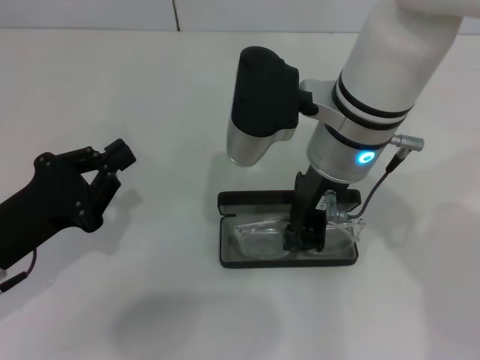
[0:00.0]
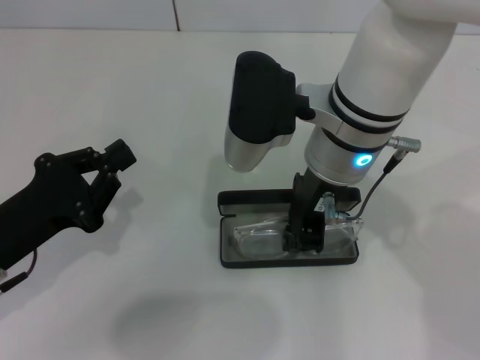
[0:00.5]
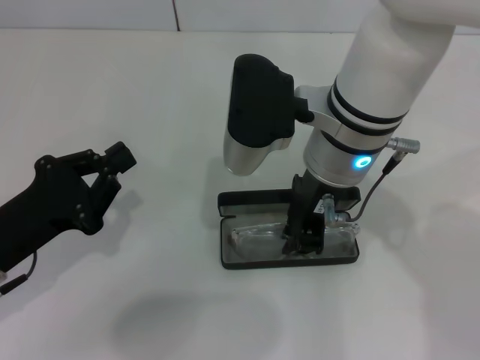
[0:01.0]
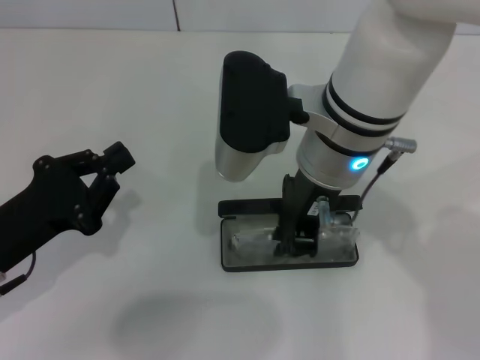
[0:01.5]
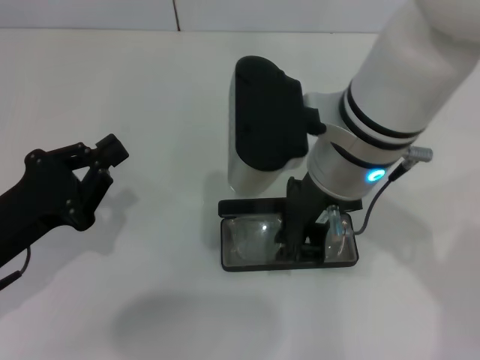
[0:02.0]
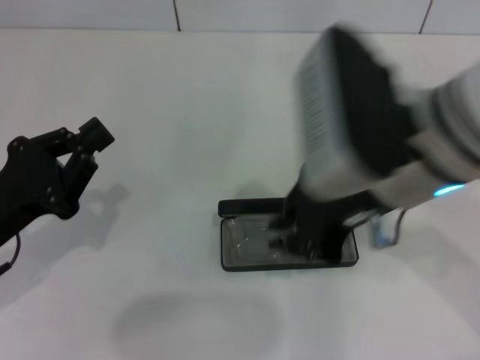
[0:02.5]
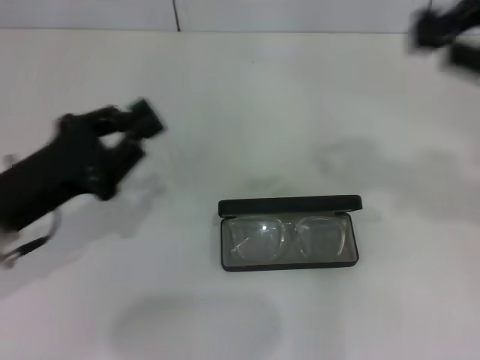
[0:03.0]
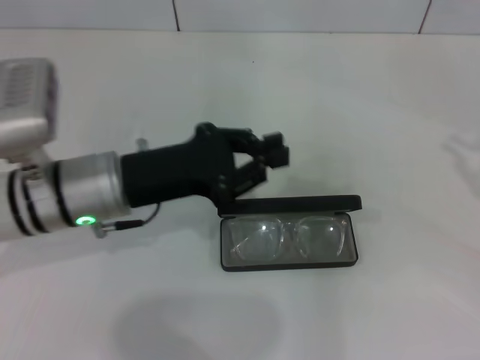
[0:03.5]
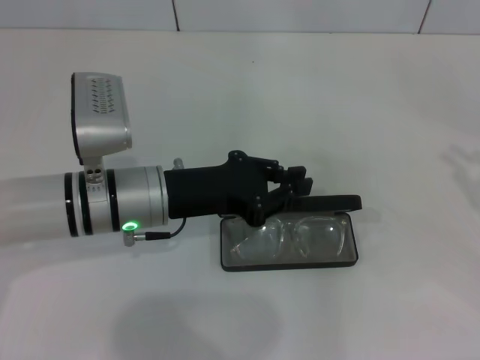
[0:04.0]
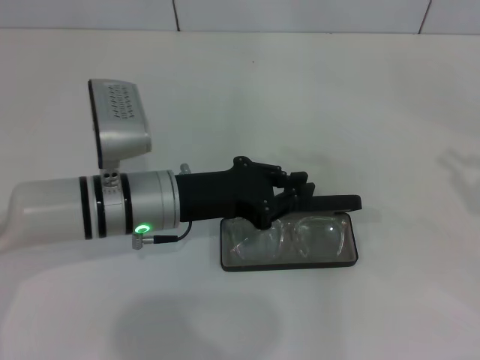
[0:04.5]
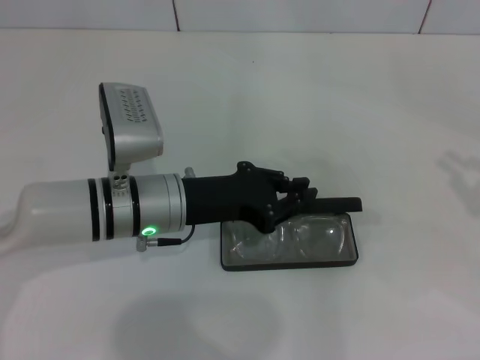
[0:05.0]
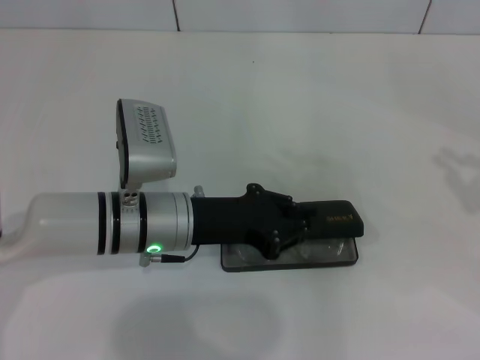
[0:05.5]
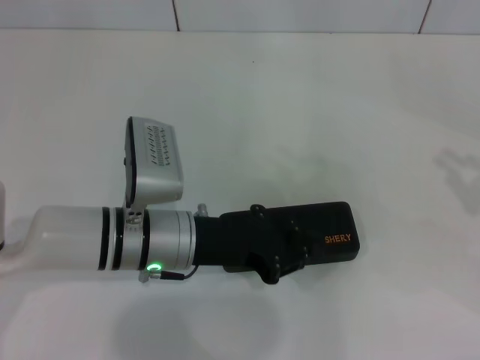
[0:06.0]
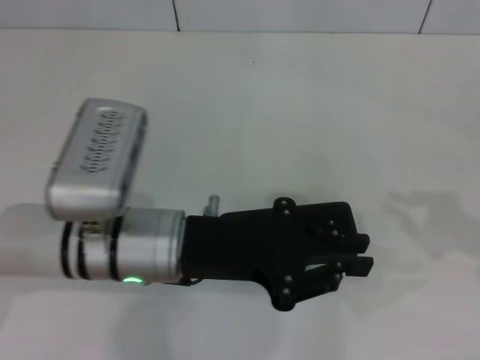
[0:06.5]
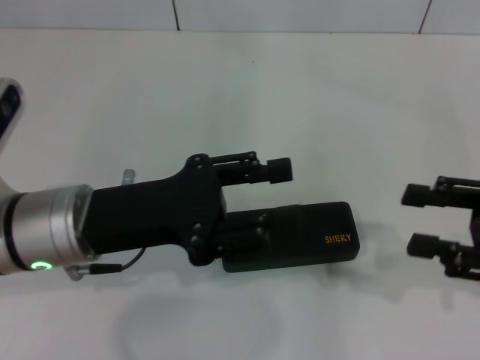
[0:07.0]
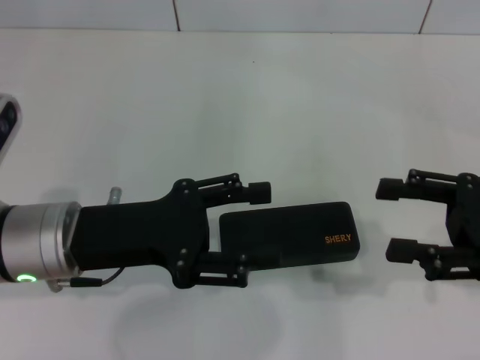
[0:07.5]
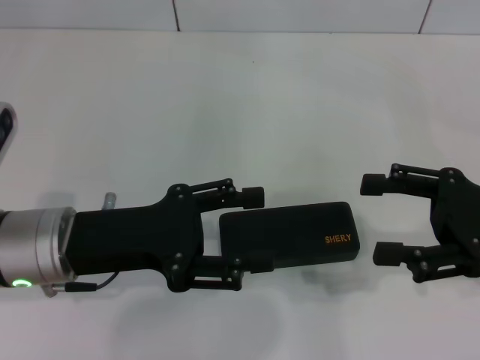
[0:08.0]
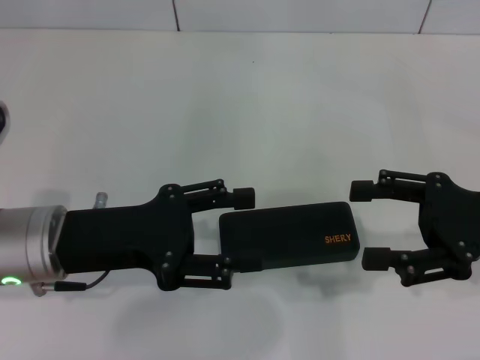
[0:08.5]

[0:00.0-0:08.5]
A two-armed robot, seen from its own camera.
Step, 0:02.0 to 0:05.5: Close the glasses case with your left hand.
0:00.0 to 0:02.0: The grippers make only small movements.
0:02.0 to 0:04.0: The left gripper travels to the right and forward by some 15 cm; the right gripper travels to the right by some 35 cm.
0:04.0 to 0:06.5: The left gripper shifts by about 5 cm.
0:06.5 to 0:08.5: The two grippers go approximately 10 cm to the left. The left gripper opens its fingers, while the right gripper opens.

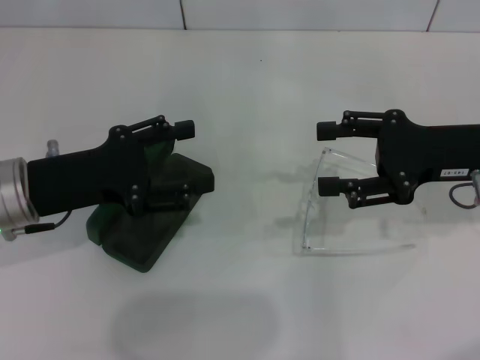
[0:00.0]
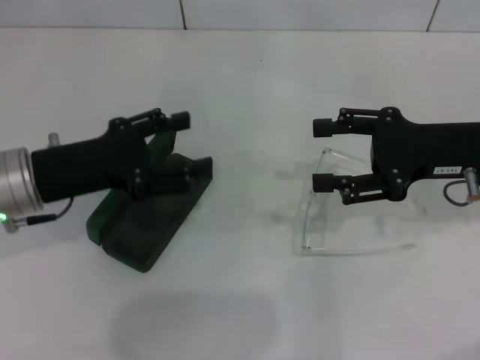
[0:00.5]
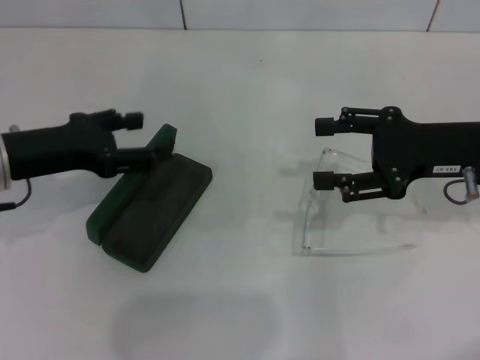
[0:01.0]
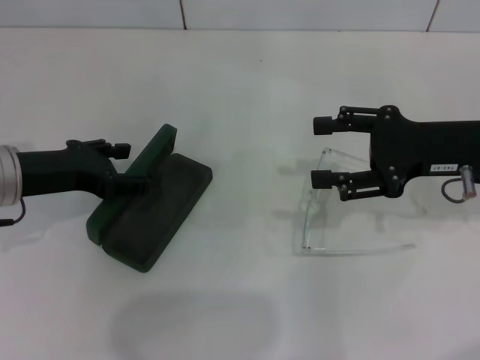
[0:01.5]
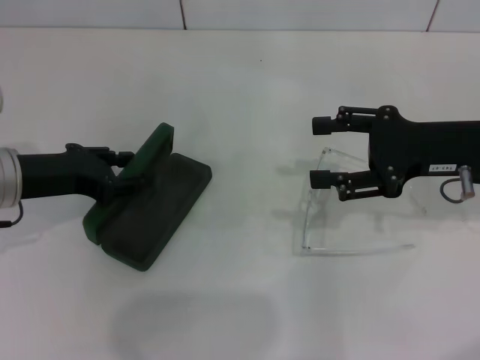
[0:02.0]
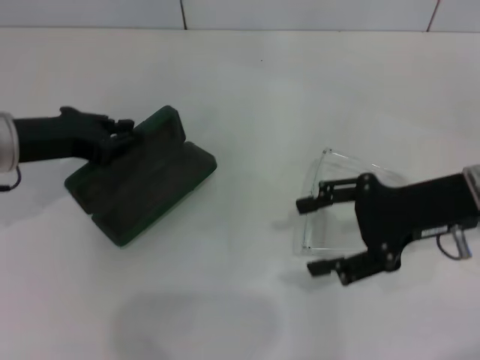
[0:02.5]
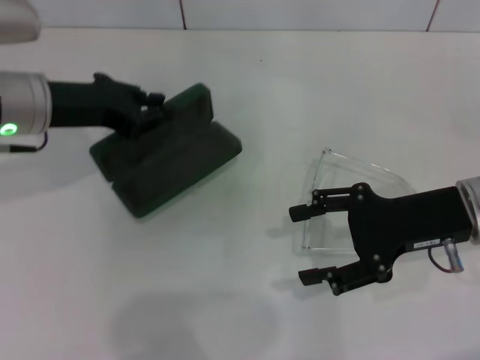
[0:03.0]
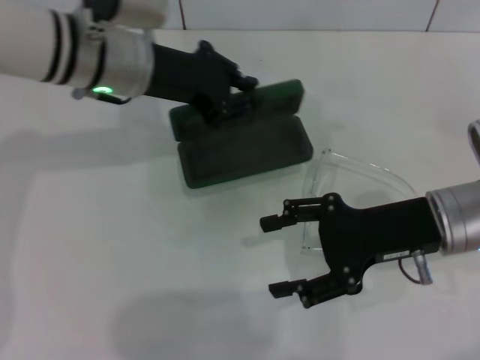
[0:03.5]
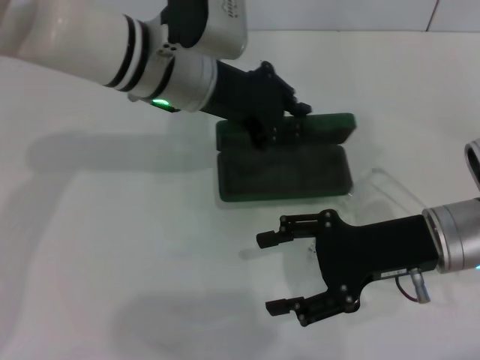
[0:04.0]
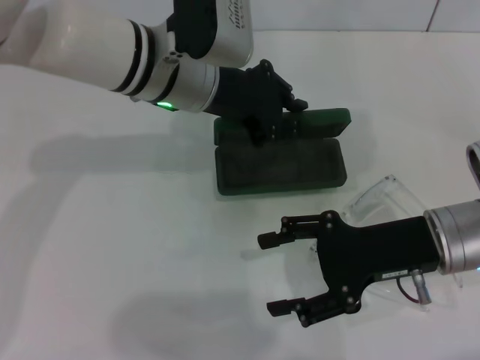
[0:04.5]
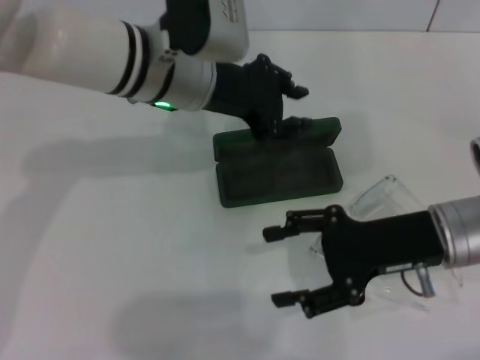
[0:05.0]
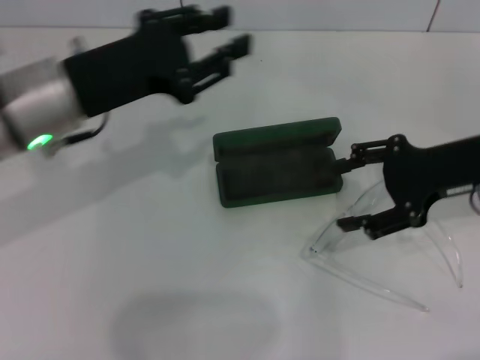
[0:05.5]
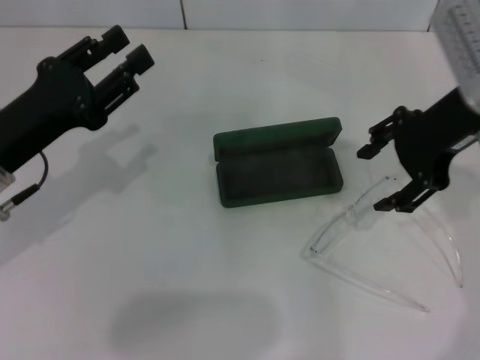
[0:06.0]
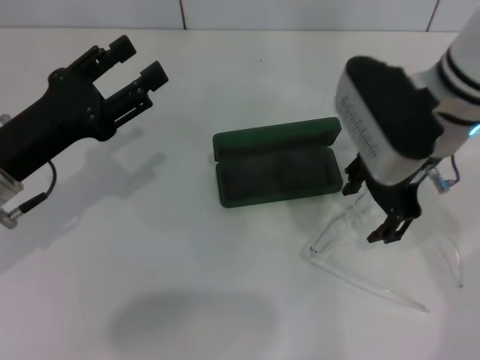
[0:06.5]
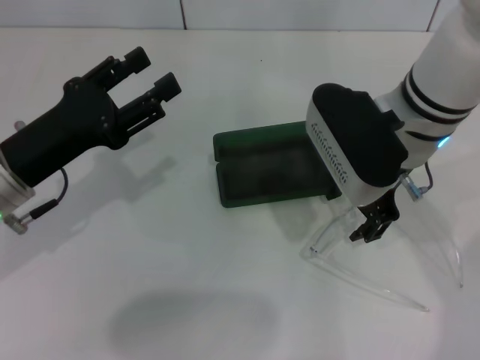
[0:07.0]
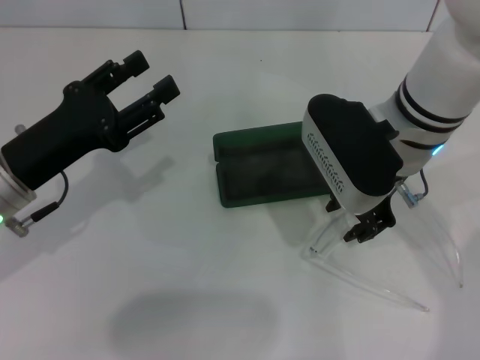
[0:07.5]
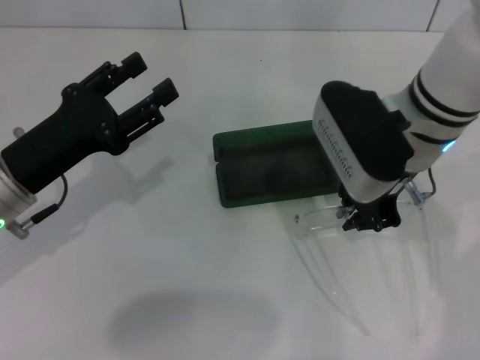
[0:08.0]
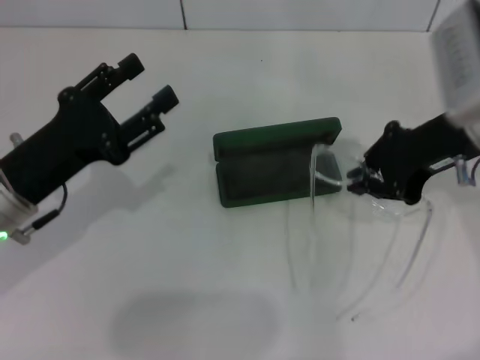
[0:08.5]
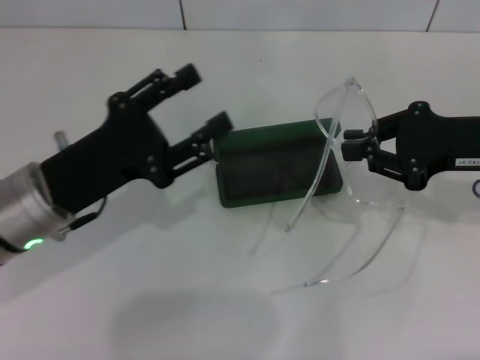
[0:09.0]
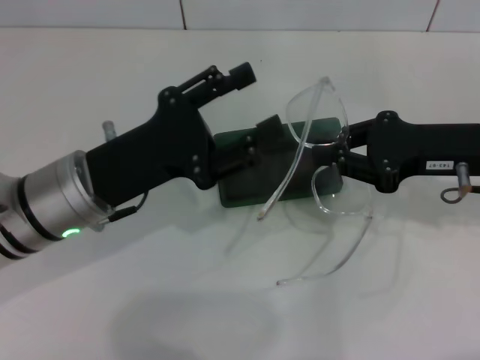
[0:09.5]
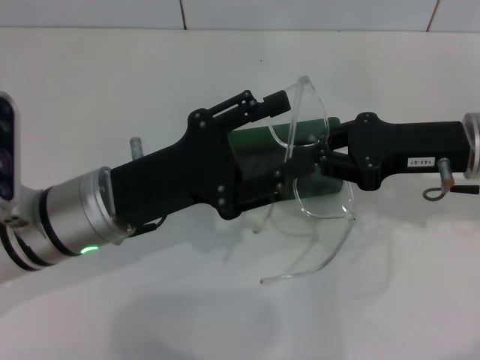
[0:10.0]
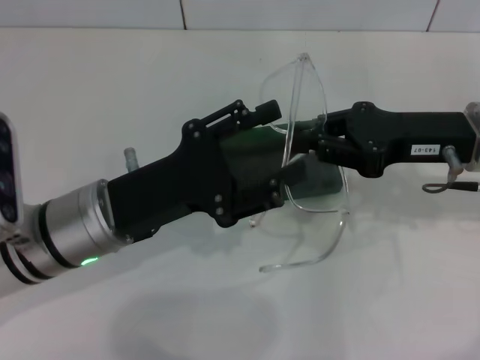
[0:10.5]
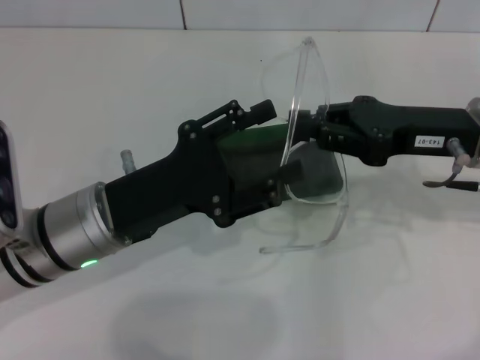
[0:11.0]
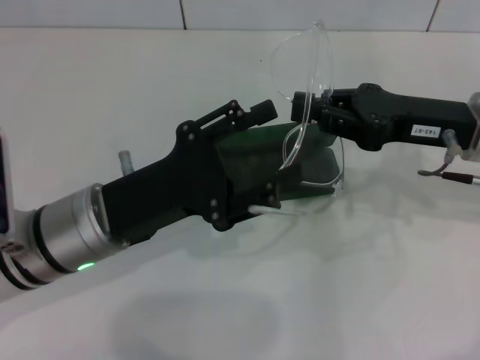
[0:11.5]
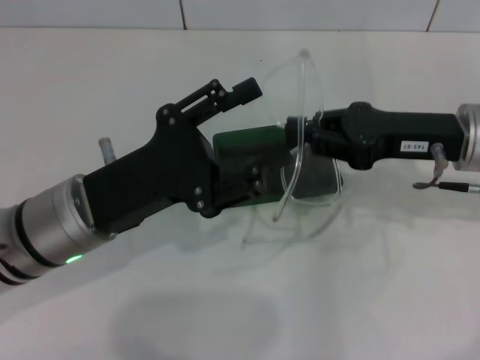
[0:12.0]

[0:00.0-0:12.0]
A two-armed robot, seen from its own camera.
Step, 0:00.0 to 0:02.0: Grab the glasses case with your left hand.
Step, 0:02.5 to 0:04.5: Place the glasses case in the center of the table with your left hand.
Step, 0:05.0 to 0:07.5: Grab the eyeglass frame with your right hand.
0:02.0 to 0:04.0: The right gripper is displaced backward by some 5 cm; the left gripper is displaced to the right by some 20 cm, and closes its fingers.
0:04.0 to 0:06.0: The right gripper is displaced upward and forward by about 15 cm; the left gripper moves to the left and backward, about 20 cm, and opens.
0:06.0 to 0:08.0: The right gripper shifts some 10 cm to the left and downward, and closes its fingers, while the left gripper opens.
0:08.0 to 0:10.0: The grippers both shift to the right by roughly 10 cm.
0:10.0 to 0:12.0: There are only small adjustments of the grippers.

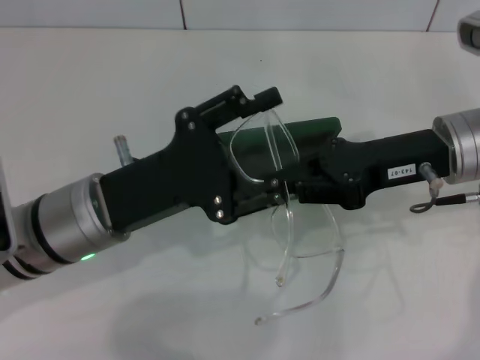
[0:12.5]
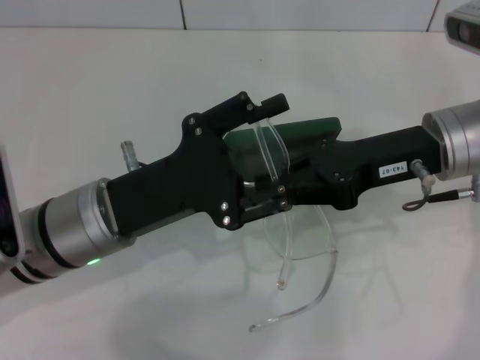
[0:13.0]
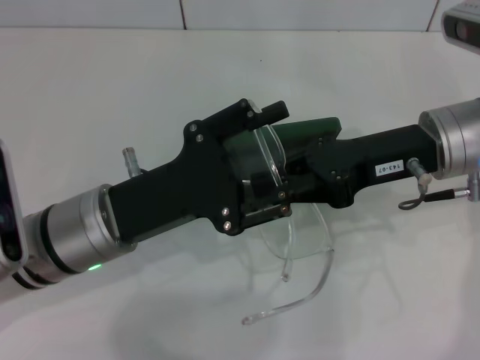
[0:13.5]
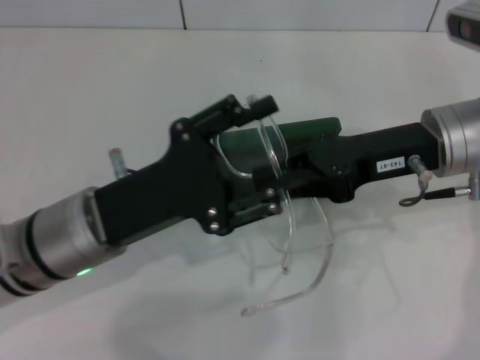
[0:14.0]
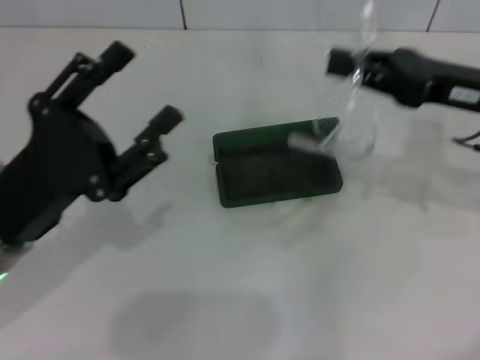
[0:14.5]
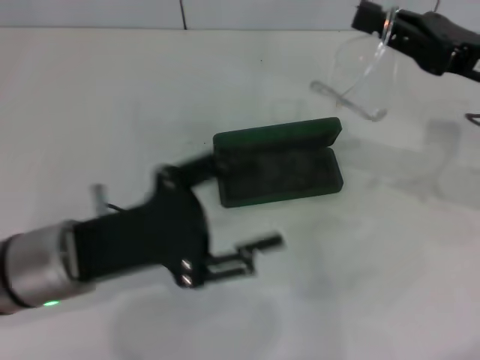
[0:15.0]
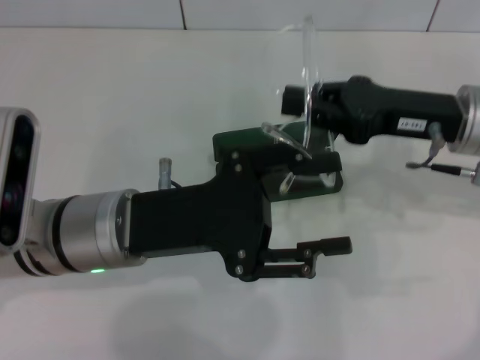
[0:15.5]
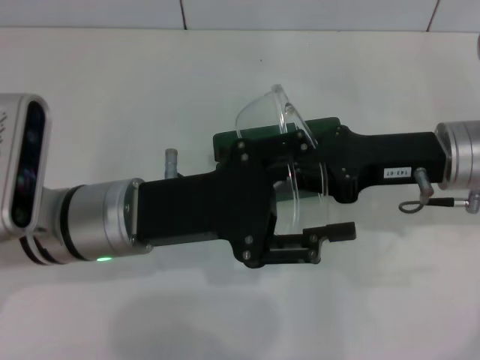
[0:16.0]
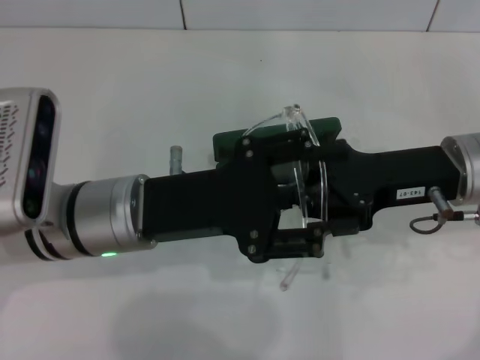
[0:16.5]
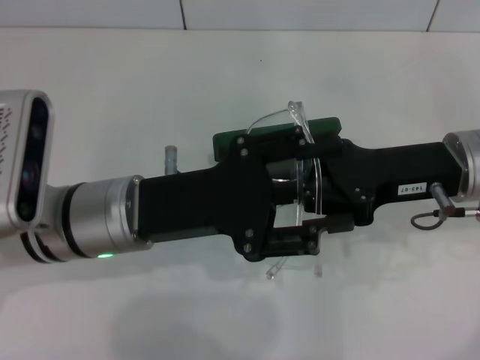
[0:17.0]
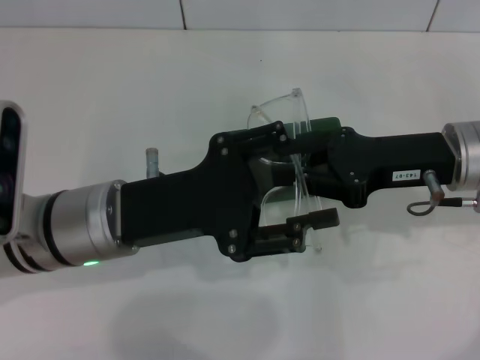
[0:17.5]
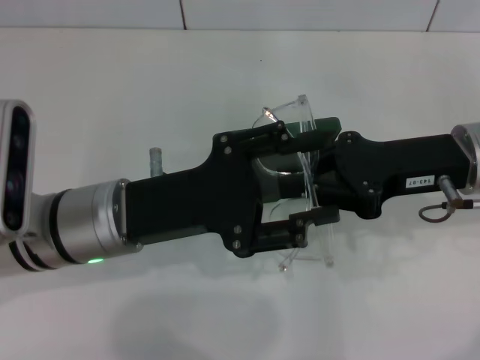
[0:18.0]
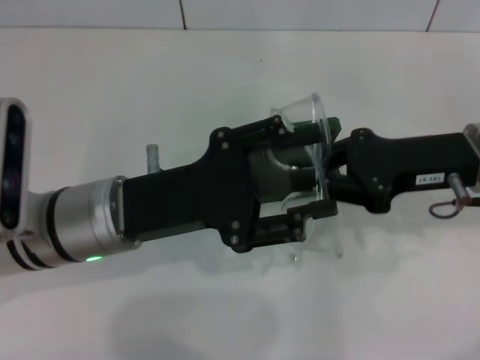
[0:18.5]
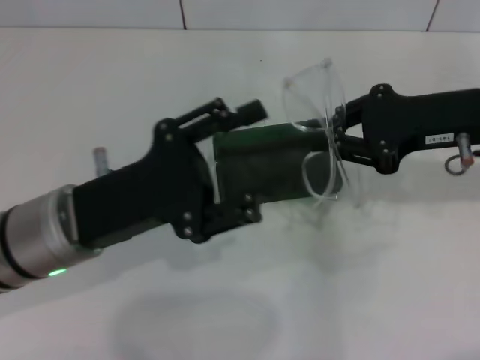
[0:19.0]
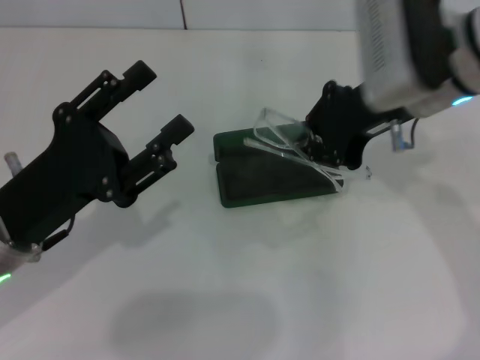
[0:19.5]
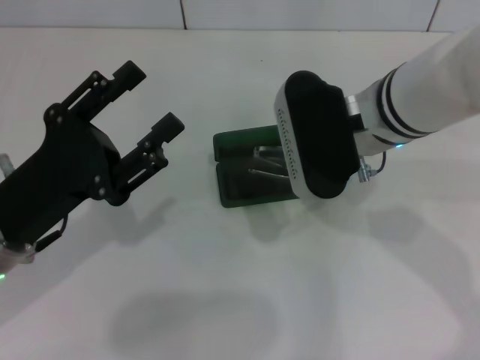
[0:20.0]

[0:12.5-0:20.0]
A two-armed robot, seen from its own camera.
Step, 0:12.5 to 0:18.0: Fold the frame with your left hand.
0:12.5 to 0:14.5: The left gripper moves to the left, about 5 cm. The right gripper shifts about 5 cm to the right.
0:14.5 to 0:16.5: The left gripper shifts approximately 10 cm to the right, while the right gripper changes place by approximately 5 cm.
0:16.5 to 0:18.0: The grippers make only small movements.
0:18.0 to 0:20.0: The two grippers go about 10 cm to the left.
